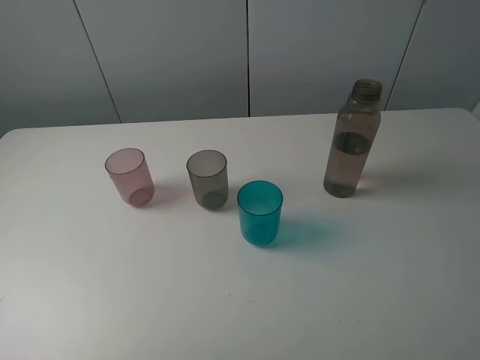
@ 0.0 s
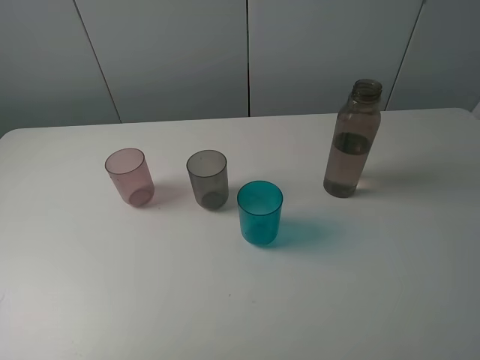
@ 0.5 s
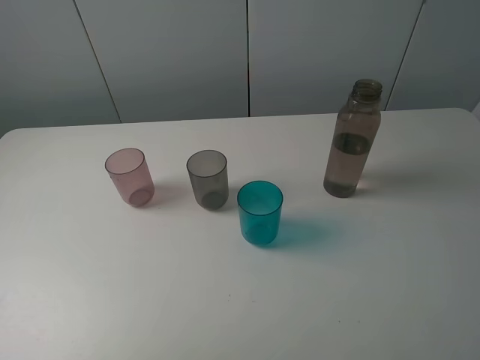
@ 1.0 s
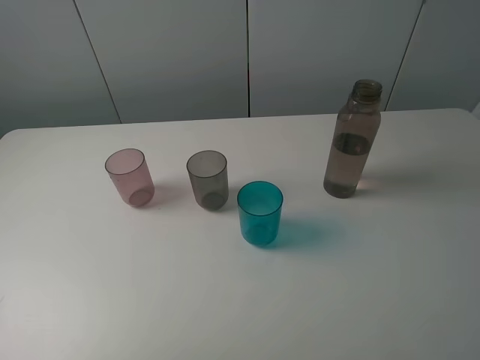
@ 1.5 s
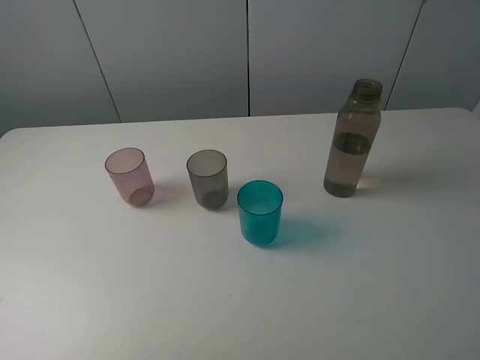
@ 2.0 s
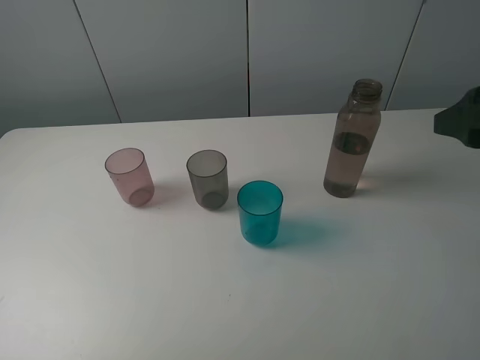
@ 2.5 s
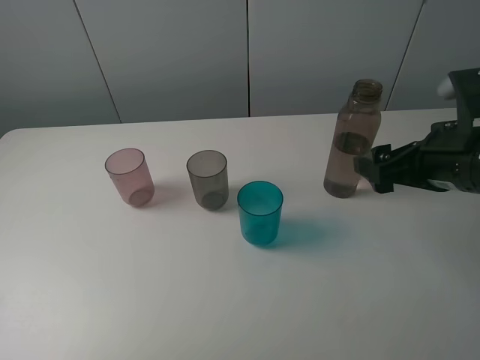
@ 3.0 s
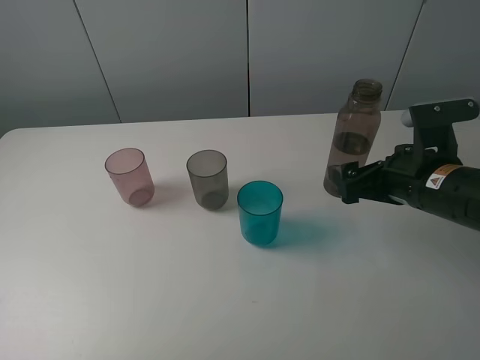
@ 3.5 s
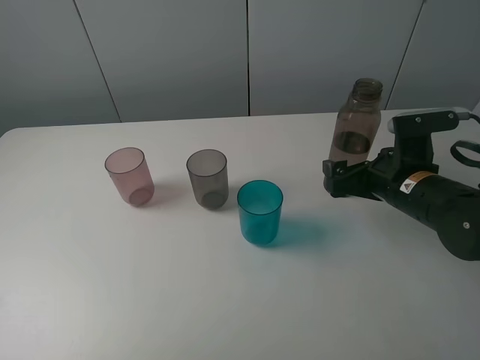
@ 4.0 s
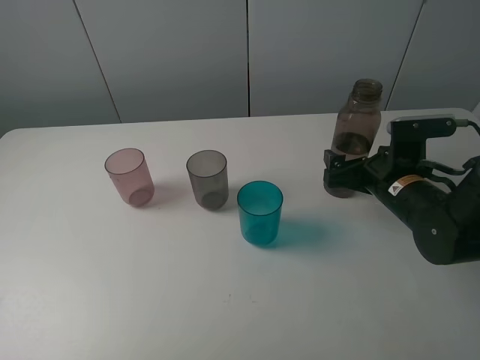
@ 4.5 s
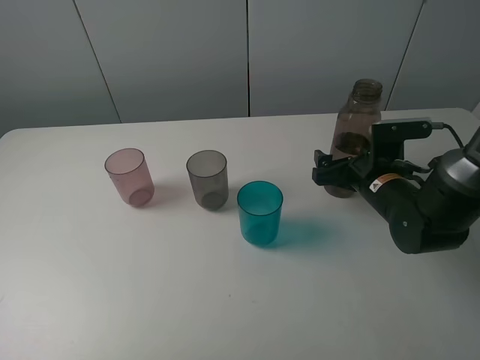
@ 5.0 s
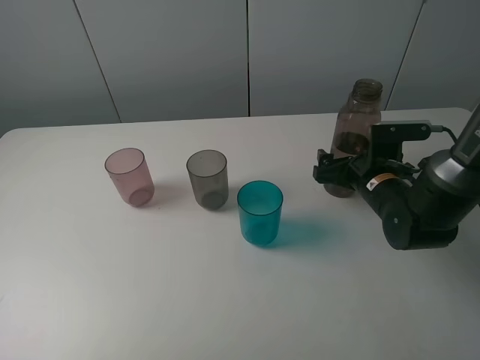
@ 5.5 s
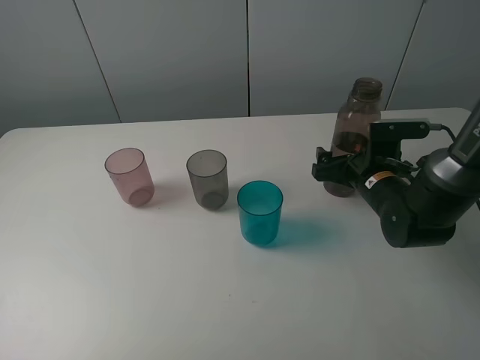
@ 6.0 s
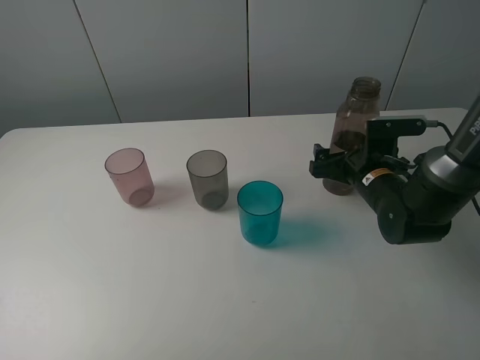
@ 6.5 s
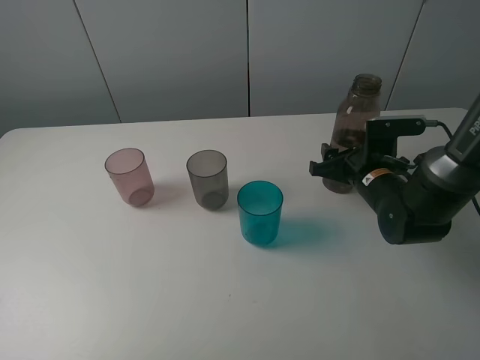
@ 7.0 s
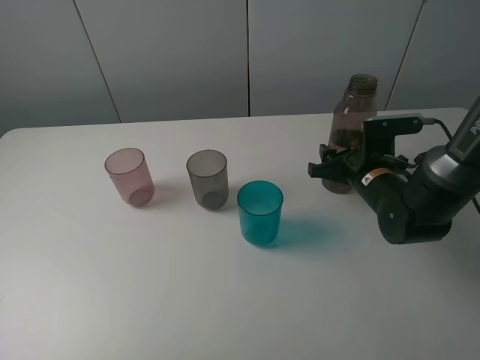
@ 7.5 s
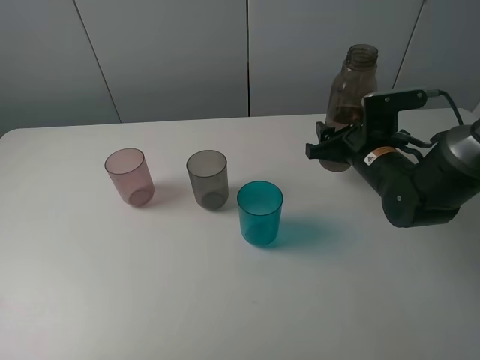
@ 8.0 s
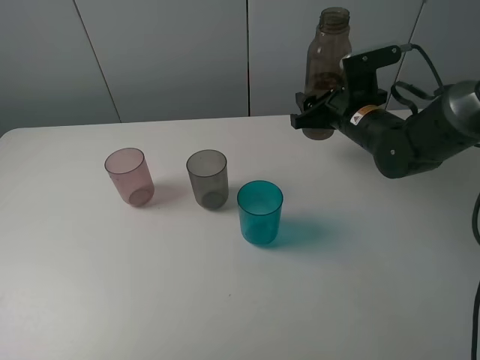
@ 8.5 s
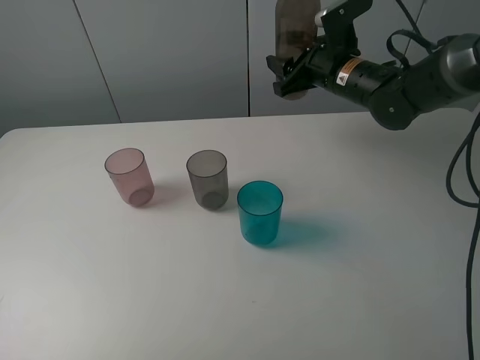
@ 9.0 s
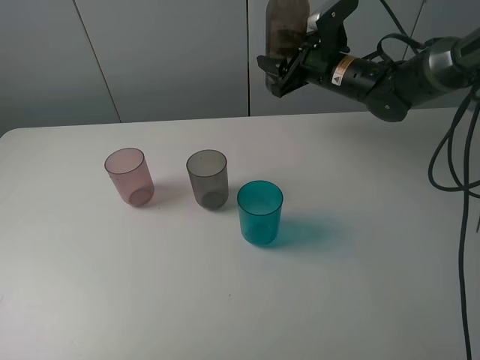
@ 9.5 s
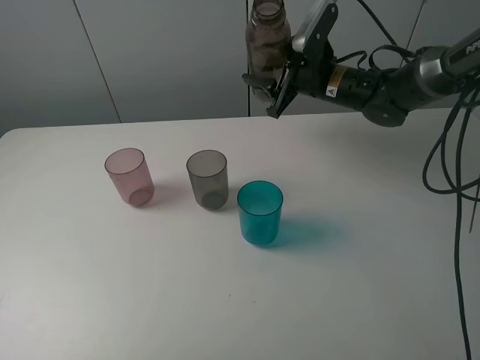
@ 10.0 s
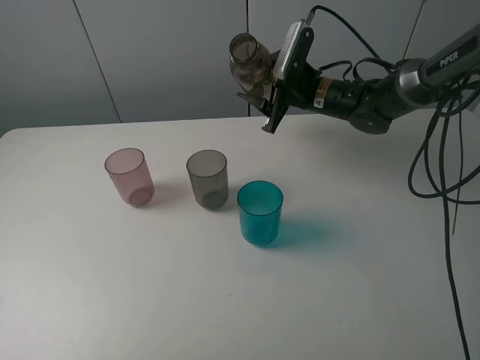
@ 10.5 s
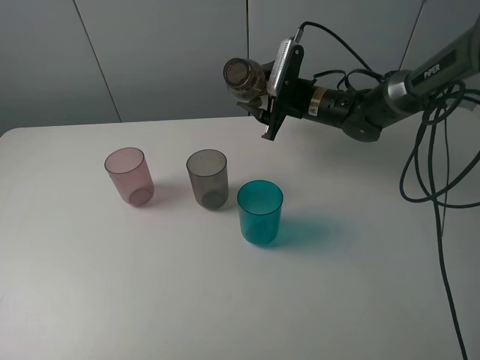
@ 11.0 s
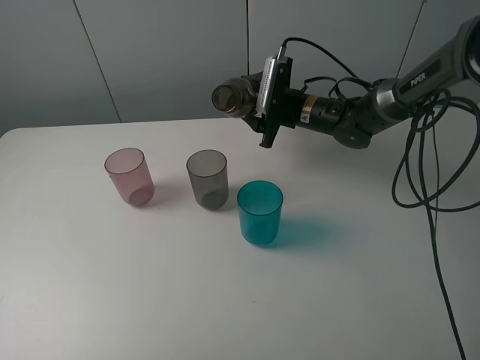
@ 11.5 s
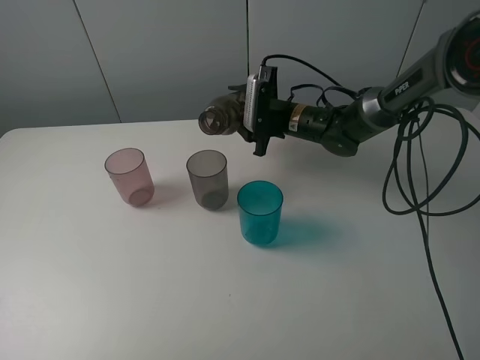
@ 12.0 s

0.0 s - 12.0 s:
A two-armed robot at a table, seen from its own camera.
Task of the whole recording: pick up the bottle filled with water and pour water into the middle cup of the three cups.
Step, 0.0 s - 6.5 s: Grasp the transparent bottle with the right gripper.
2.0 s - 4.0 s: The right gripper heads downward and forward, covering roughly 30 cm.
4.0 s - 6.0 s: The right gripper heads forward, covering some 5 cm.
6.0 s - 8.0 s: The right gripper closes its fingers.
8.0 s - 10.0 s: The right gripper moves forward, to the left and upward, approximately 15 cm.
10.0 s - 12.0 s: The right gripper goes about 5 cm downward.

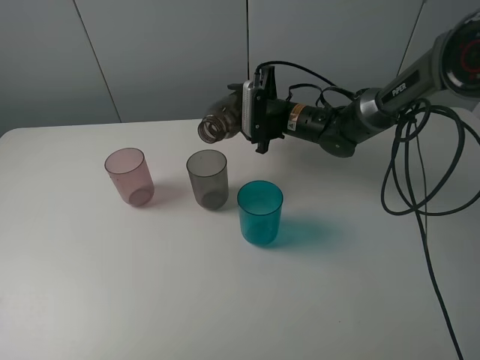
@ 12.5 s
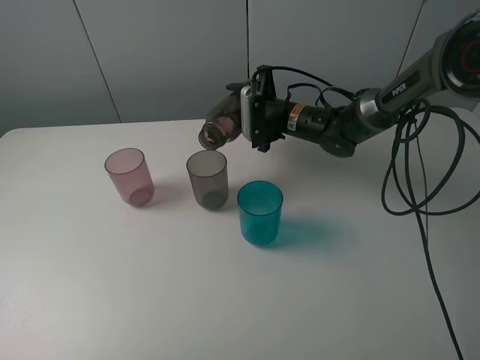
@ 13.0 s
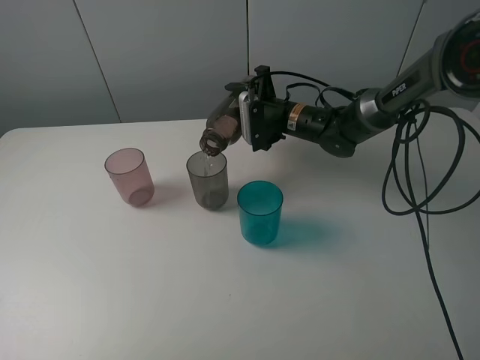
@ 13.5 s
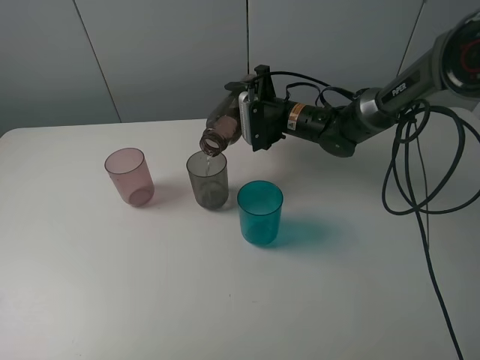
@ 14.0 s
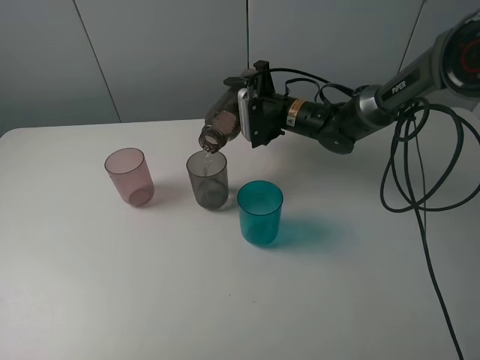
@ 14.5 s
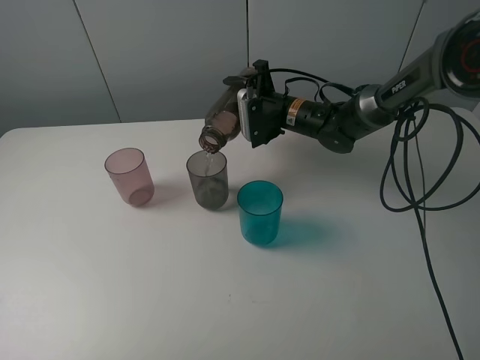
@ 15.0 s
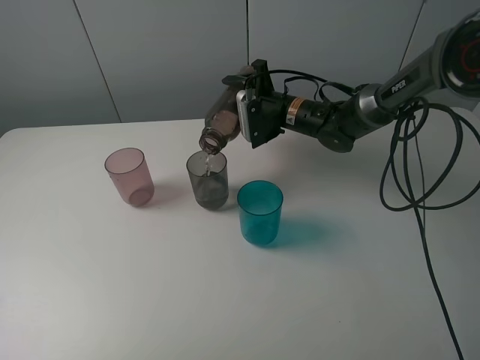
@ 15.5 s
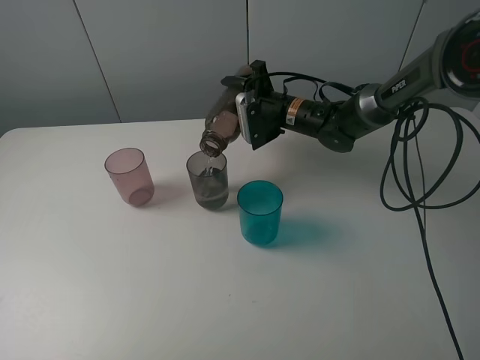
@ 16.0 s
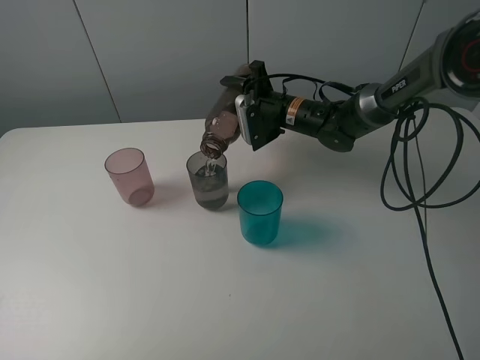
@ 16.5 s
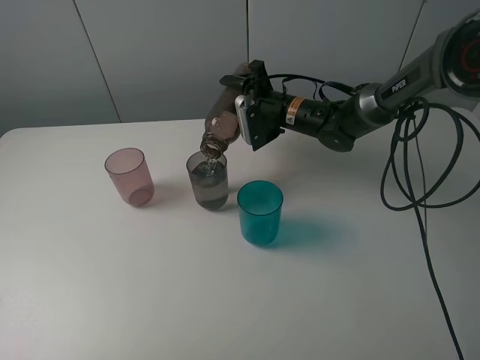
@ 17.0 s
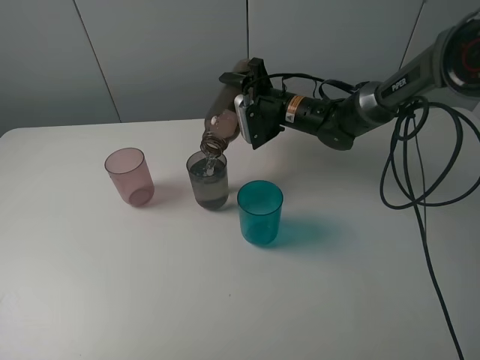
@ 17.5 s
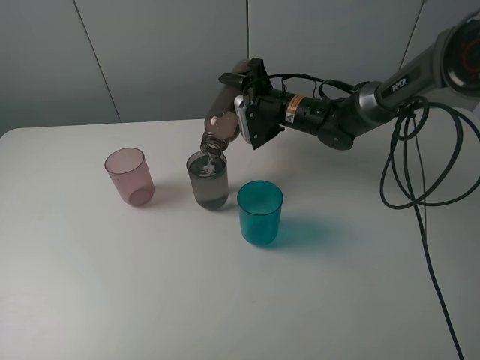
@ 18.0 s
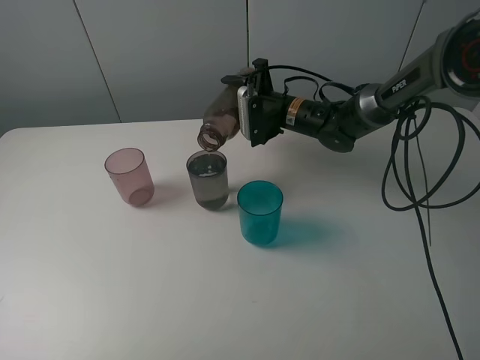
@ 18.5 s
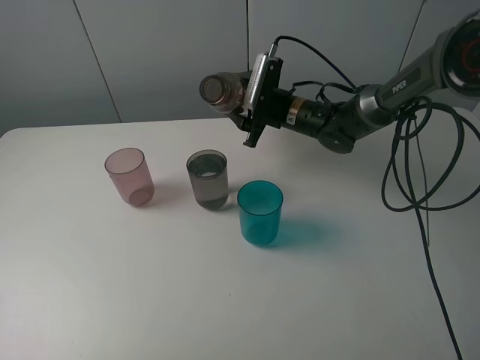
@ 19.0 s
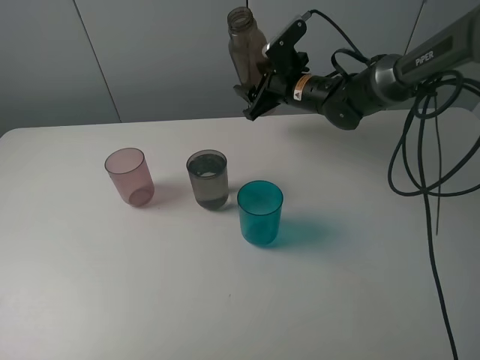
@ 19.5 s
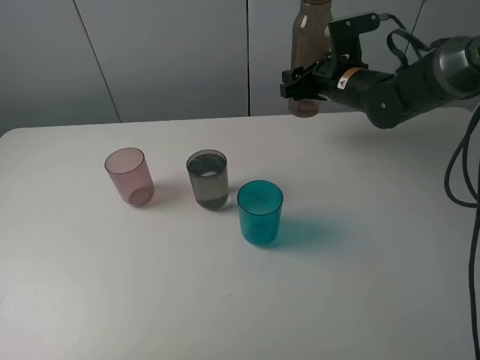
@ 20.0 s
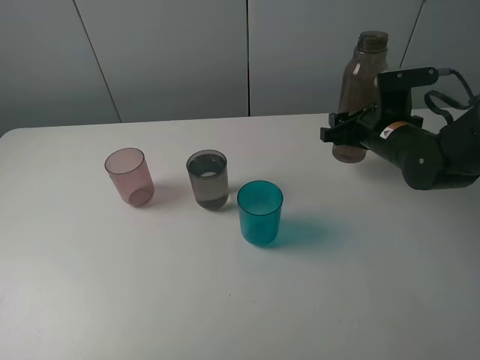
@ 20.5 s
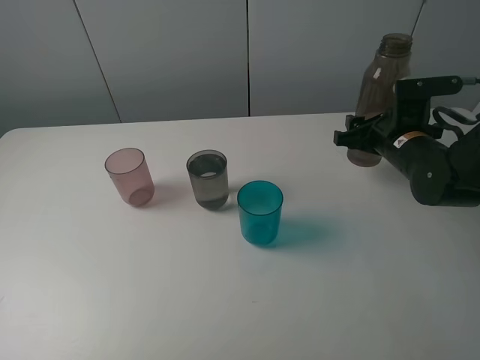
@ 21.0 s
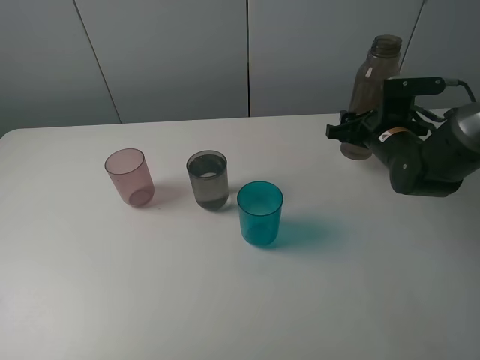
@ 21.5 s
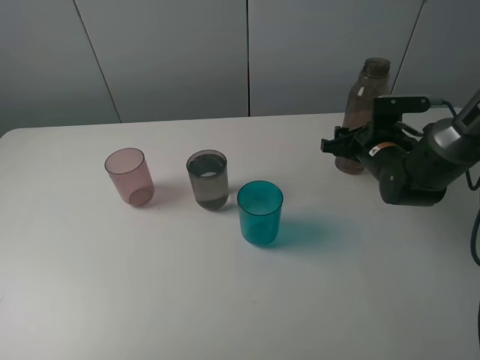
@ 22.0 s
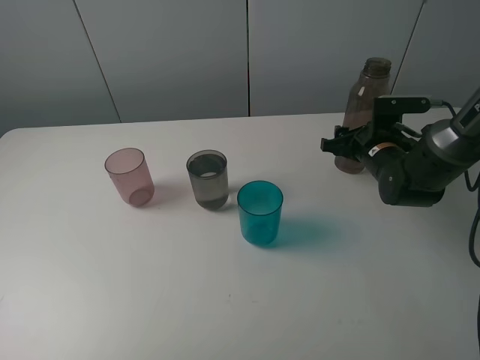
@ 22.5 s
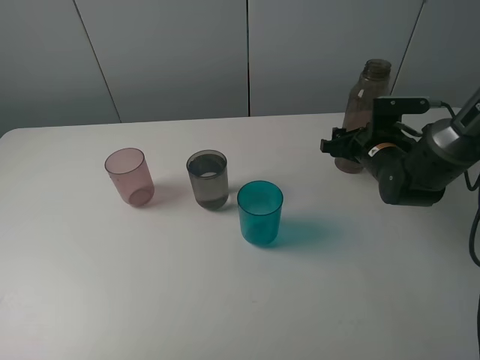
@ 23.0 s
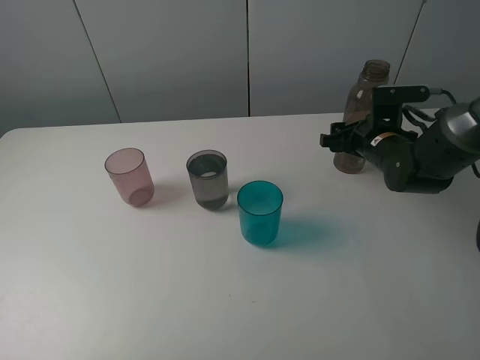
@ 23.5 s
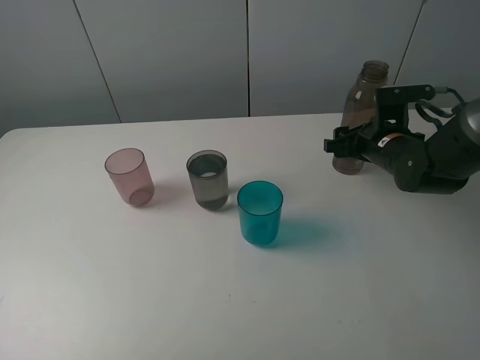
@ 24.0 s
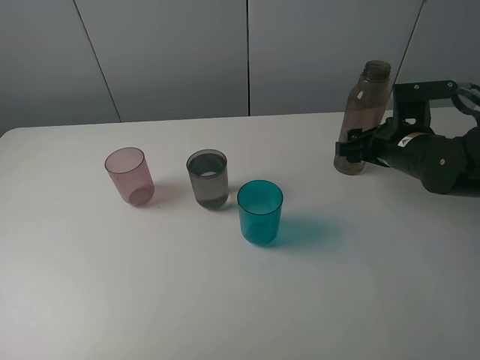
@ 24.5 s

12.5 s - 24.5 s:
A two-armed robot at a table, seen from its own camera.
Task of the whole recording: pick up the bottle filled with water and pour water into the middle cup of the three cups.
12.5 s - 14.5 s: The grippers move only a little.
14.5 s - 18.5 s: There are only small adjustments of the grippers.
18.5 s - 20.5 s: The right gripper goes roughly 15 cm to the right and backward.
20.5 s - 22.5 s: The right gripper moves downward, about 5 cm.
22.5 s - 24.5 s: The right gripper is displaced upward and backward by about 10 cm.

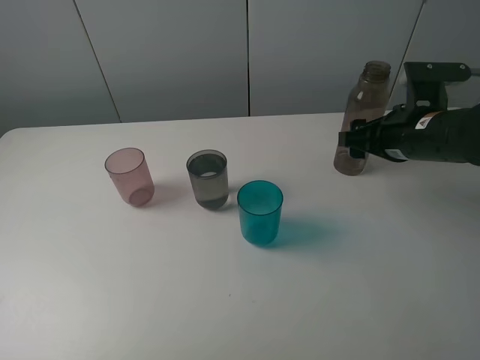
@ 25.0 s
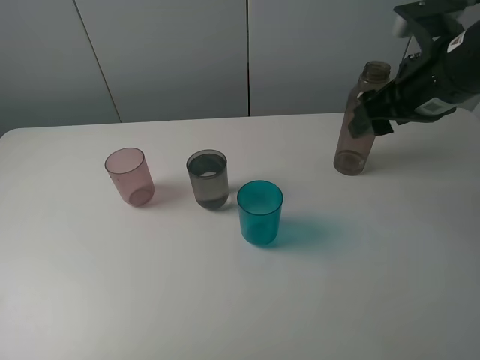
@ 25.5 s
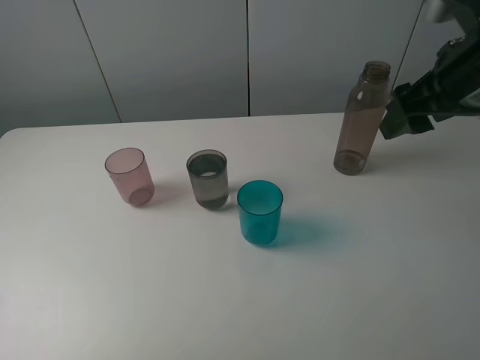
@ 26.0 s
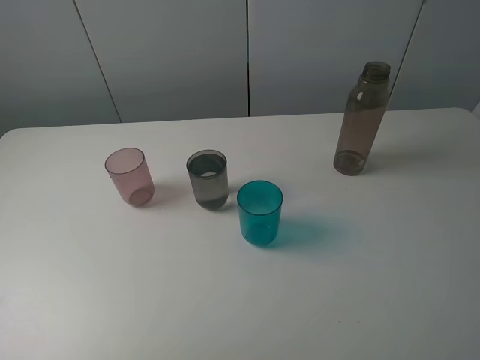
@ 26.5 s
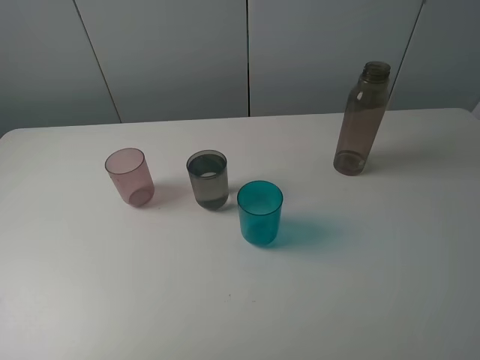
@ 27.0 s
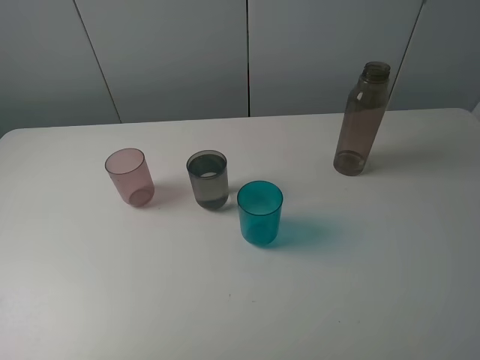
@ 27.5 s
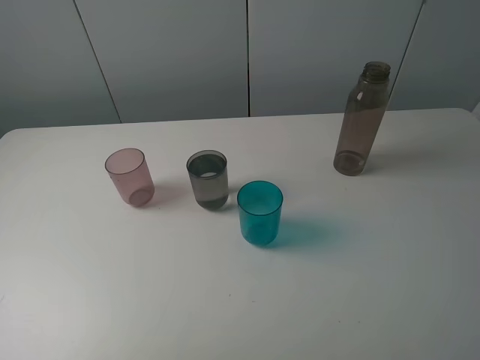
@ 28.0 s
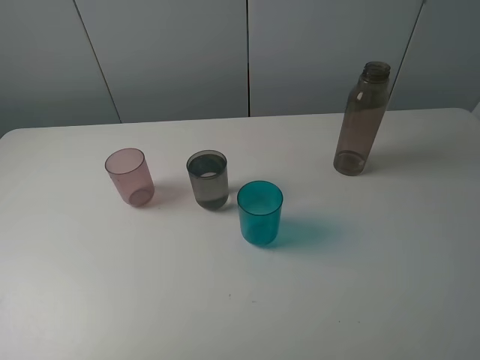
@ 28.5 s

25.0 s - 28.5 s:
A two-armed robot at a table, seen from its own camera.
Task of the whole recording: pick up the bottle filled with water and pour water into the middle cup of the three cups.
25.0 s - 27.0 s: The right gripper heads backward and upward, covering roughly 25 cm.
